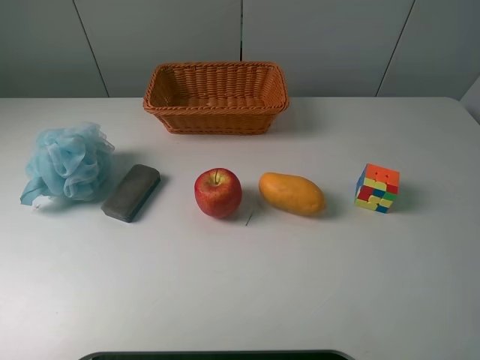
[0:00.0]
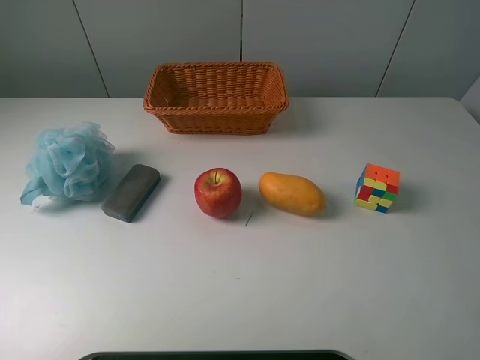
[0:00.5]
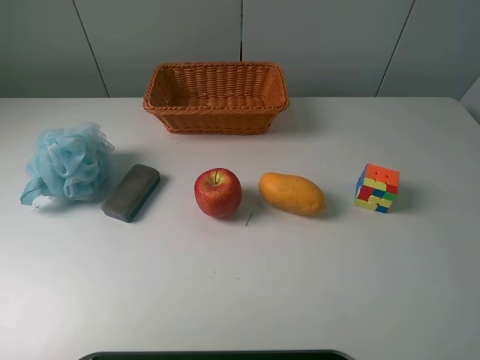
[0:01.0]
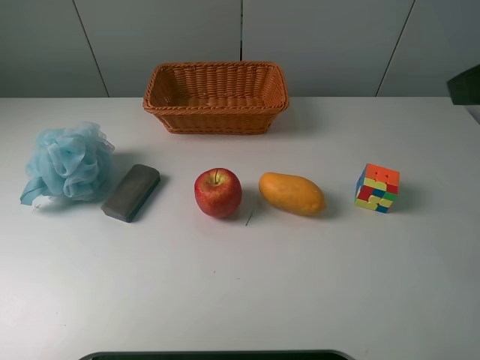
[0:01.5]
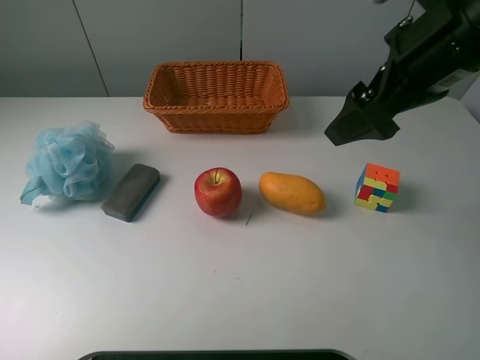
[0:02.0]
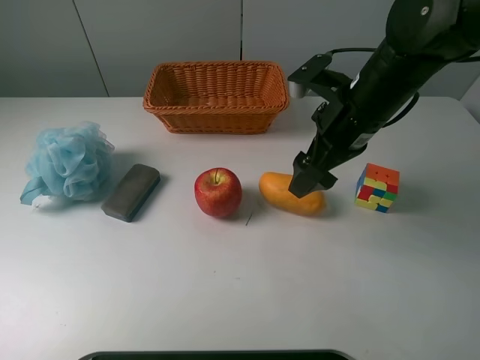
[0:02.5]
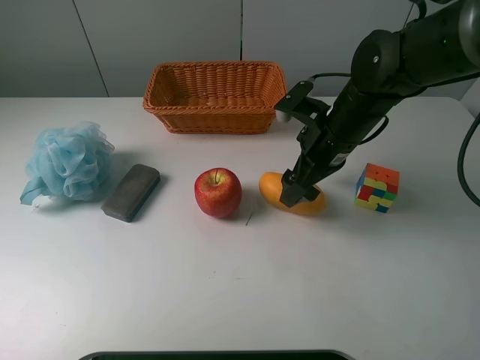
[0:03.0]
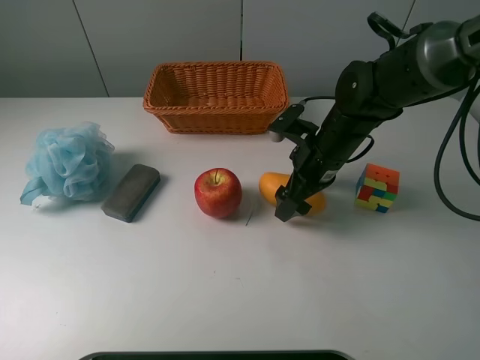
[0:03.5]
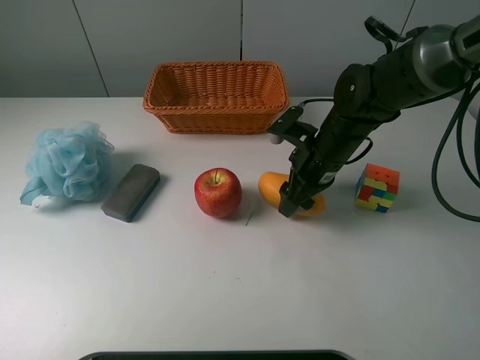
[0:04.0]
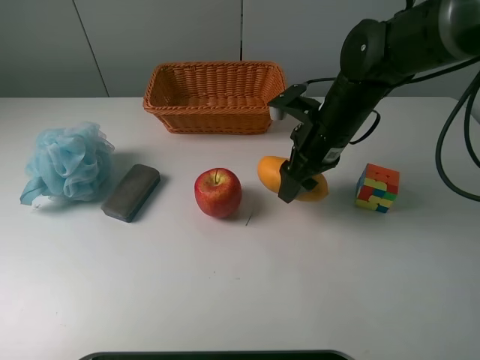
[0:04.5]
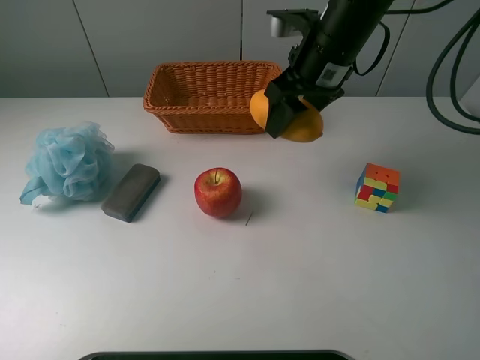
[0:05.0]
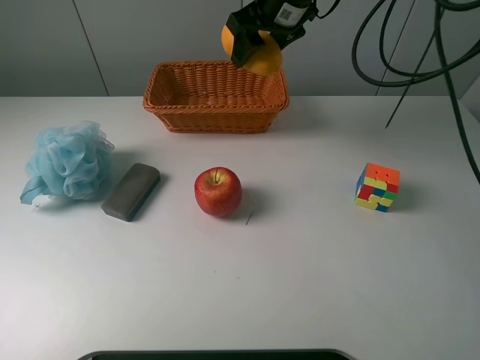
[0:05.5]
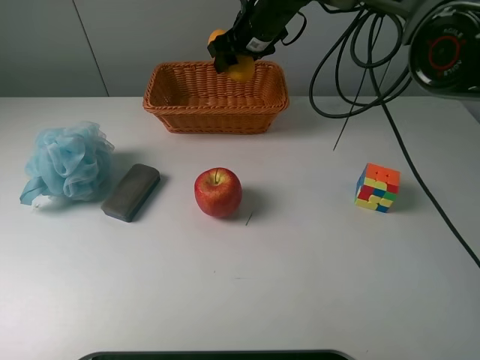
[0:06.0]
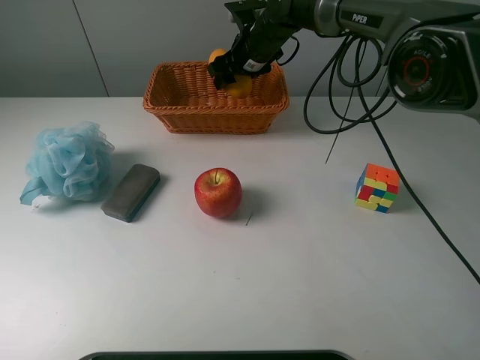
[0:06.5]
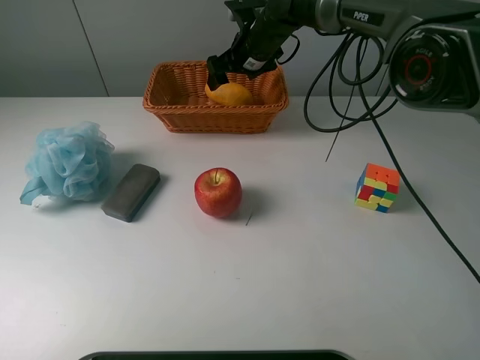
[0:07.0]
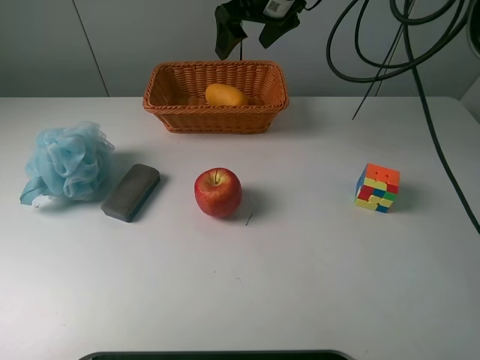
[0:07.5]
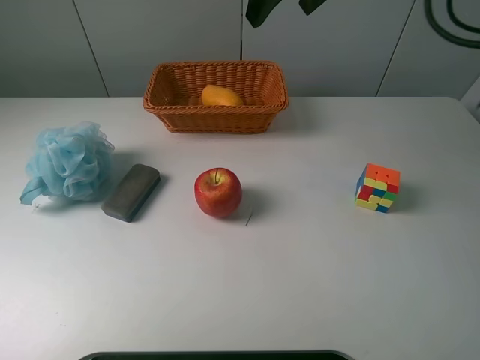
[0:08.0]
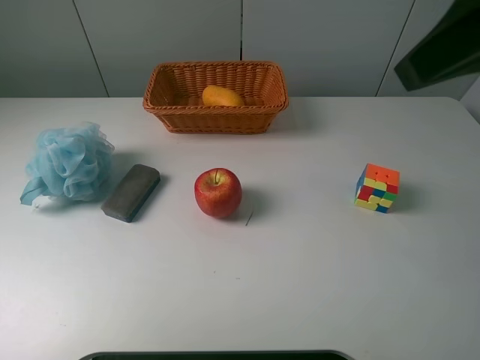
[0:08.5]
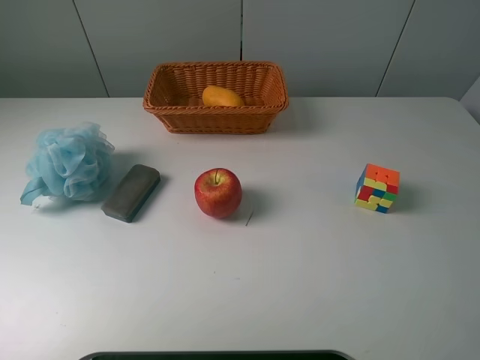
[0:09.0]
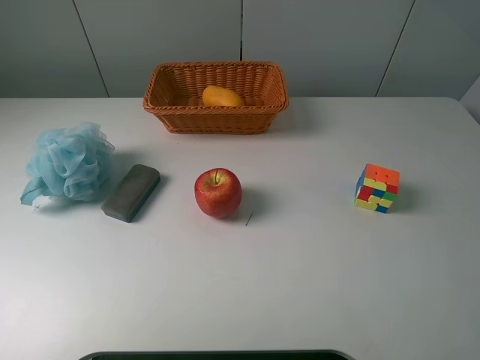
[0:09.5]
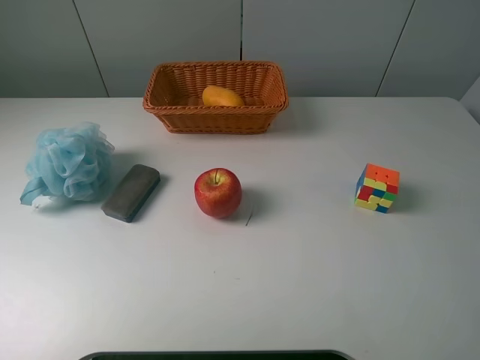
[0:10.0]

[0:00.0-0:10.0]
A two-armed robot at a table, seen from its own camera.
Task of the whole recording: use a picker to grab the item closest to the apple and place it in the basket.
Step, 0:00.0 to 0:04.0: Grasp the mango with the right gripper.
Step, 0:04.5 to 0:07.0: Place the mango into the basket with the right gripper.
0:00.0 to 0:02.0: The right gripper moves forward and to the left, about 25 cm.
0:02.0 to 0:04.0: The right gripper moves downward, some 20 cm, and closes.
0:04.0 to 0:06.0: The right gripper travels forward, to the left and upward by about 25 cm.
0:06.0 to 0:08.0: The right gripper travels upward and backward by approximately 25 cm, and opens its fingers.
0:08.0 to 0:10.0: The right gripper heads backward and to the right, covering some 40 cm.
